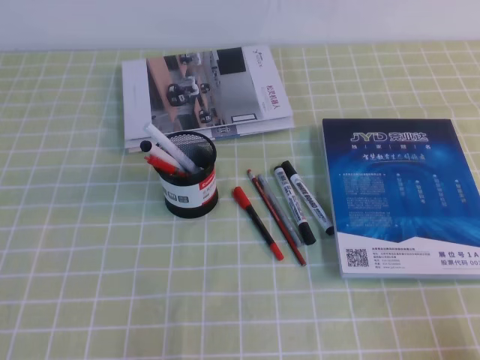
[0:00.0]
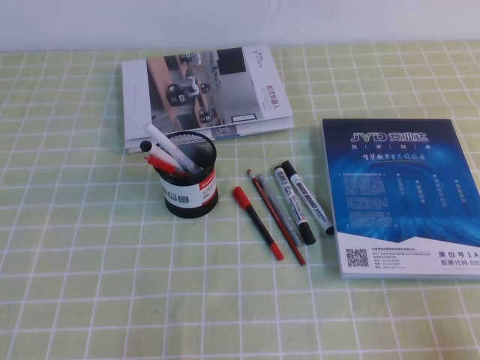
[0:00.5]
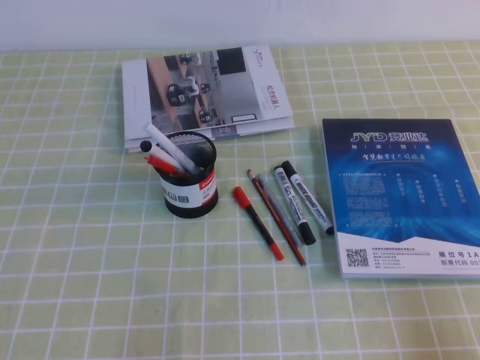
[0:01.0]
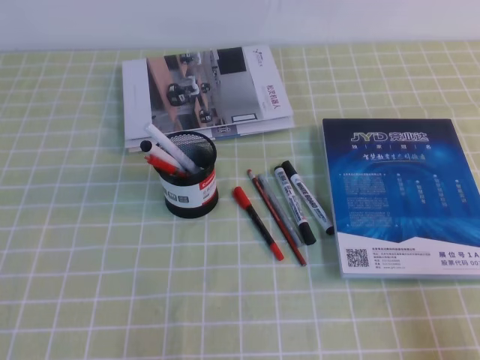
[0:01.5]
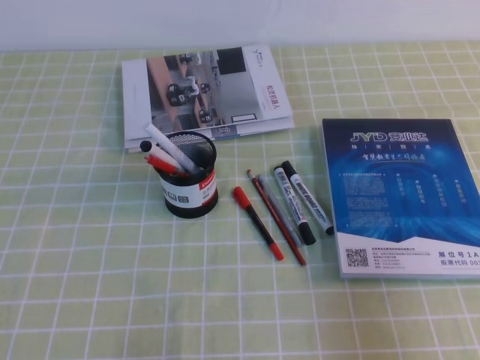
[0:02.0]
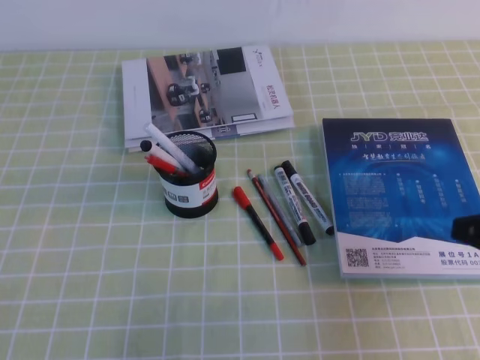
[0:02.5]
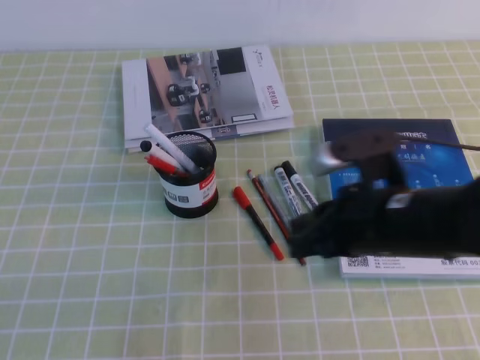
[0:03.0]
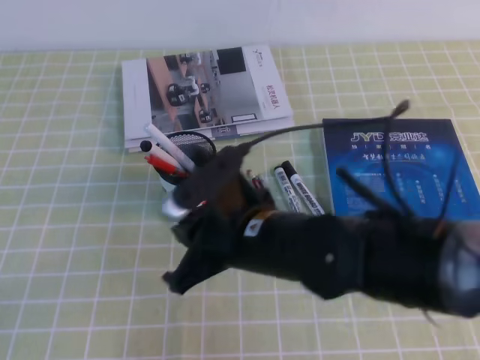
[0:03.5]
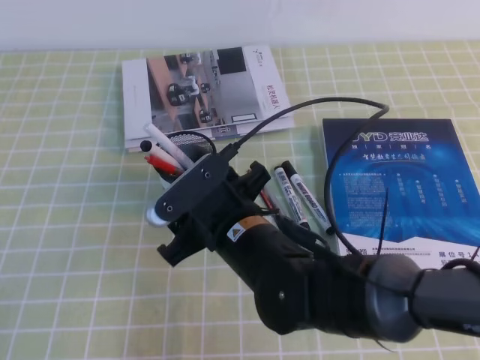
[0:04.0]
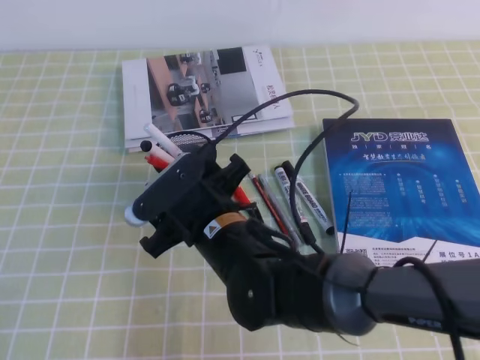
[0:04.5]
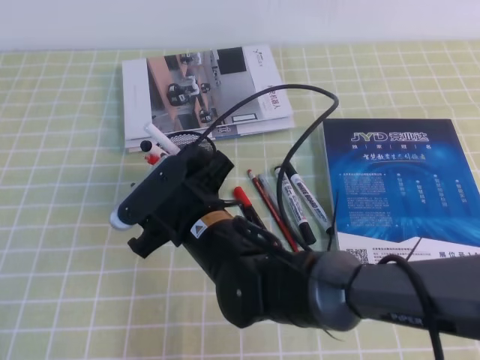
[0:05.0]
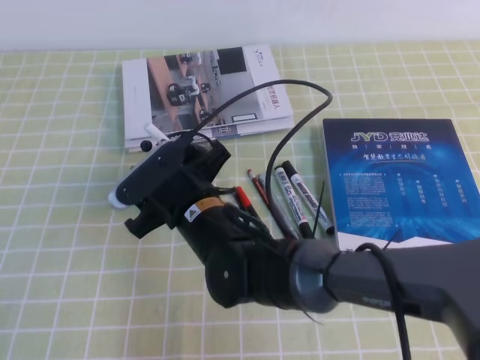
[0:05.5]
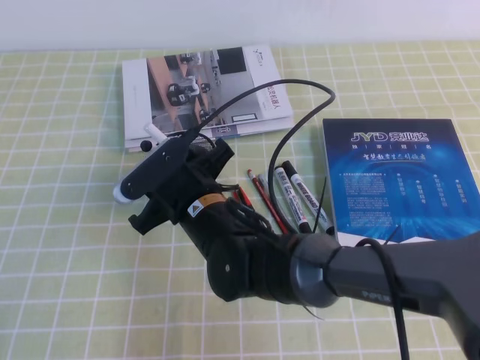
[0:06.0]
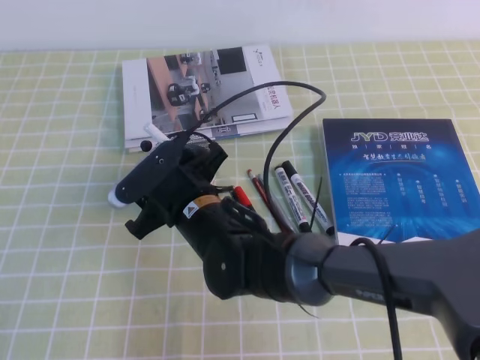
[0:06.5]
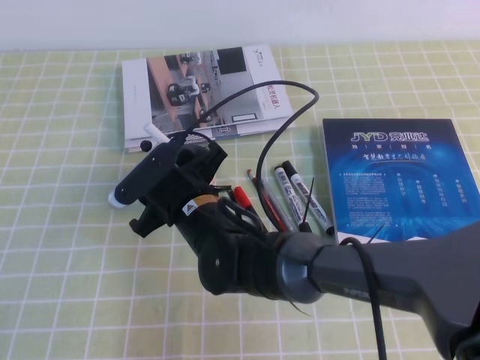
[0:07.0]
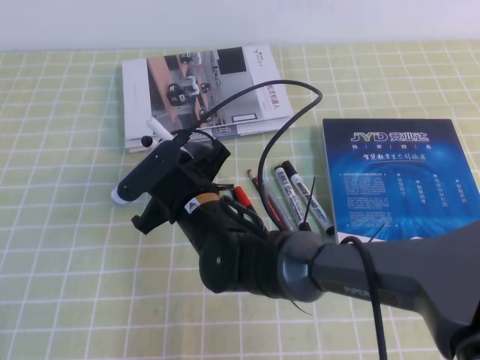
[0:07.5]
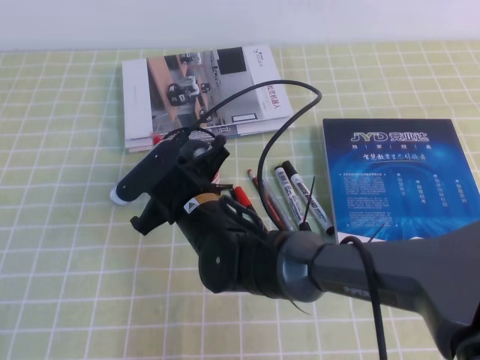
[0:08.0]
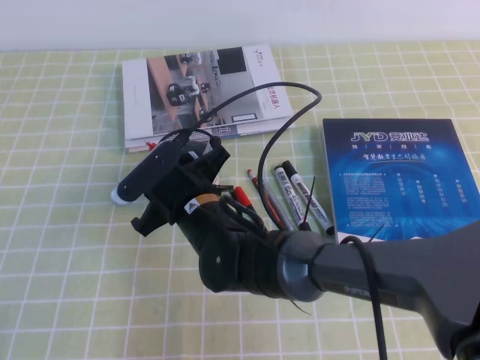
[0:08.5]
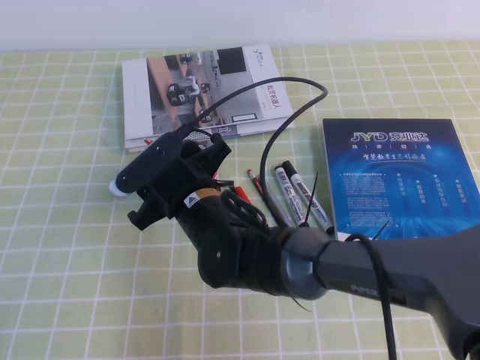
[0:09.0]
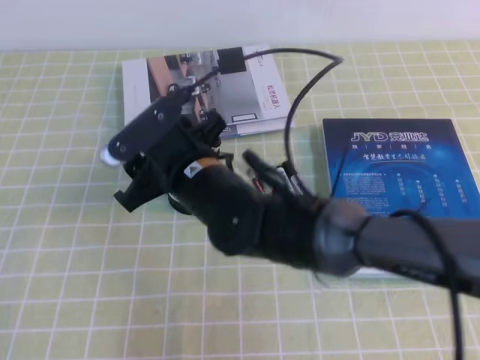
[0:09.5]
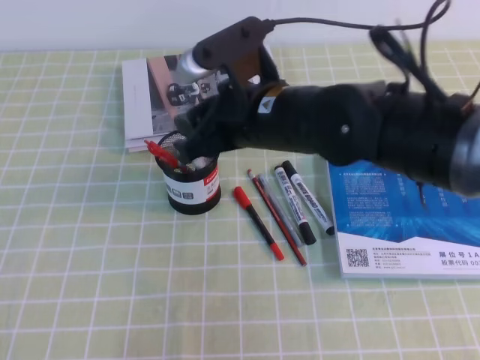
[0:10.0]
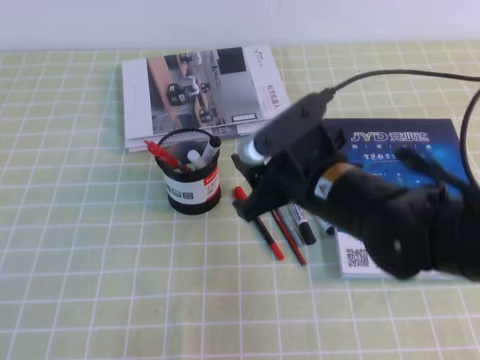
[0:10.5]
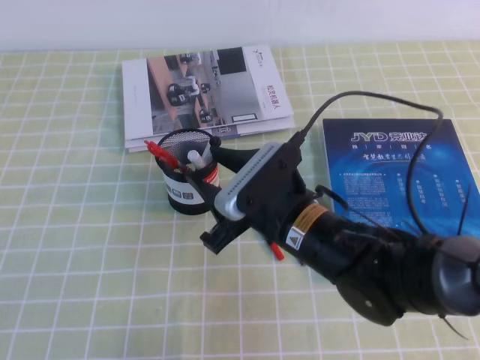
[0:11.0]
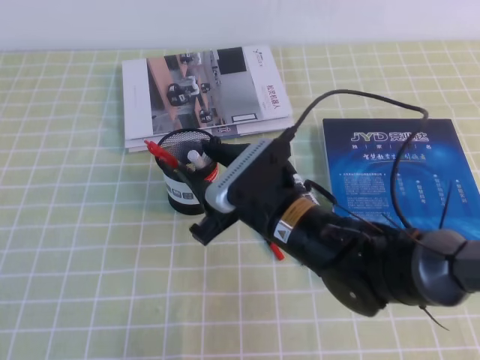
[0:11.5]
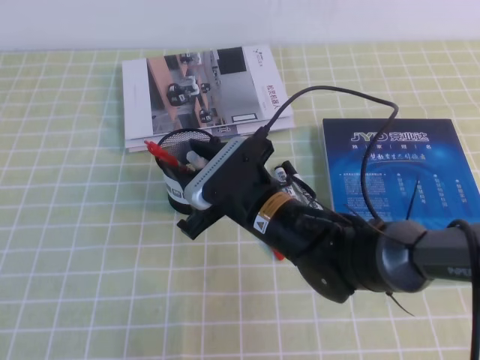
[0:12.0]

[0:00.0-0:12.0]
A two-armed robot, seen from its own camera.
0.0 to 2.0 s: The right gripper is displaced upward by about 10 cm.
2.0 to 4.0 s: The right gripper travels to the left and forward by approximately 35 cm, and opens its fingers.
4.0 to 6.0 s: The right gripper moves forward, some 5 cm.
6.0 to 8.0 s: The right gripper closes.
8.0 to 10.0 s: The right gripper moves upward and to the right, roughly 15 cm, and opens up.
10.0 to 12.0 s: The right gripper goes some 10 cm downward.

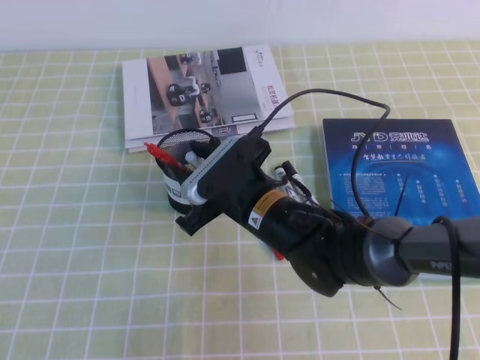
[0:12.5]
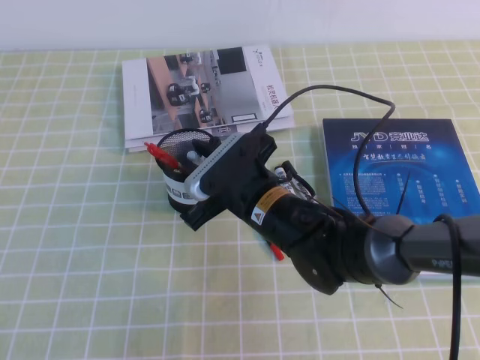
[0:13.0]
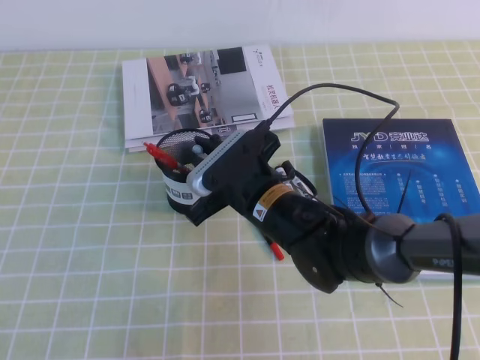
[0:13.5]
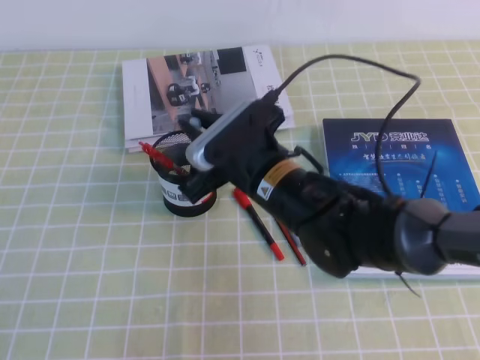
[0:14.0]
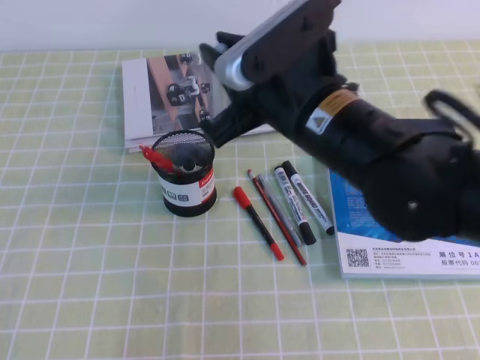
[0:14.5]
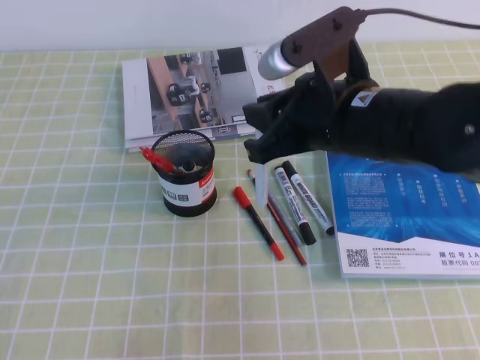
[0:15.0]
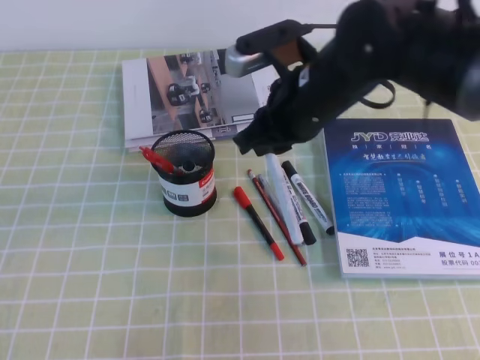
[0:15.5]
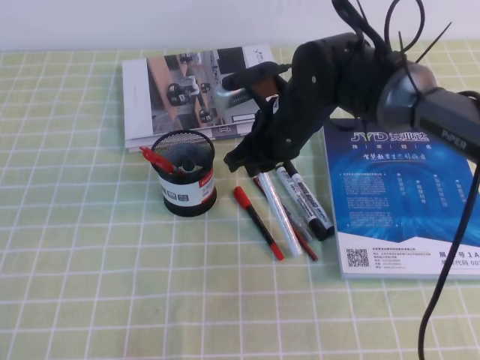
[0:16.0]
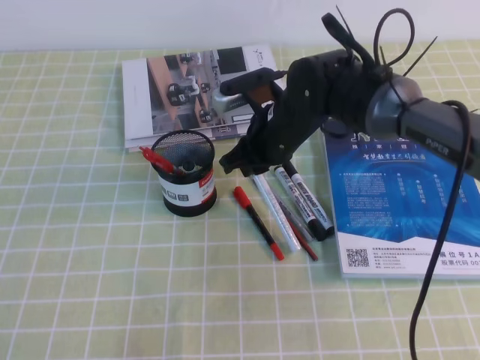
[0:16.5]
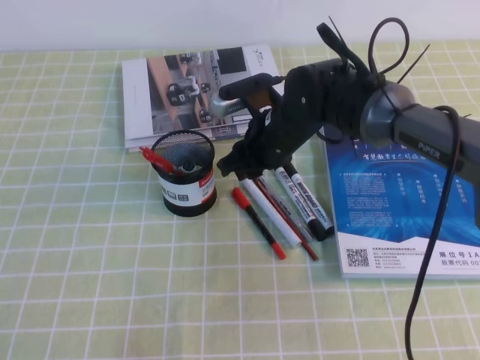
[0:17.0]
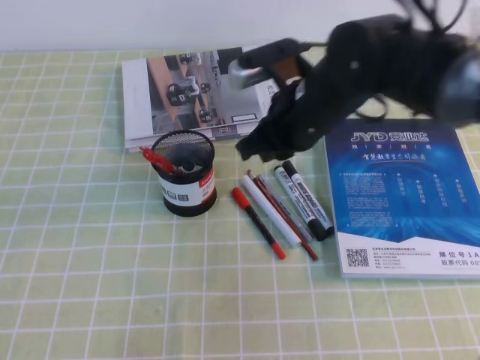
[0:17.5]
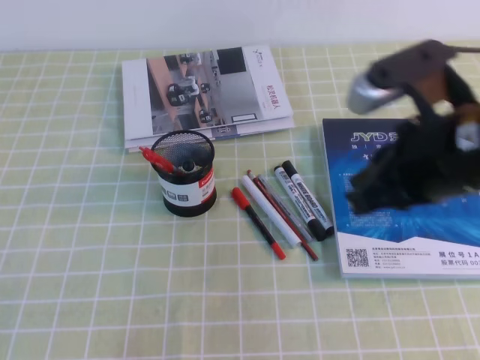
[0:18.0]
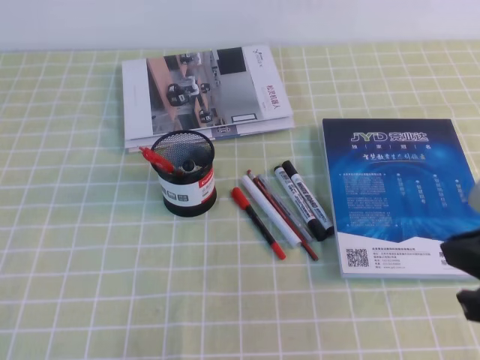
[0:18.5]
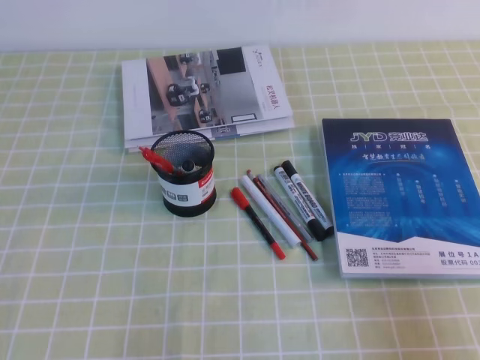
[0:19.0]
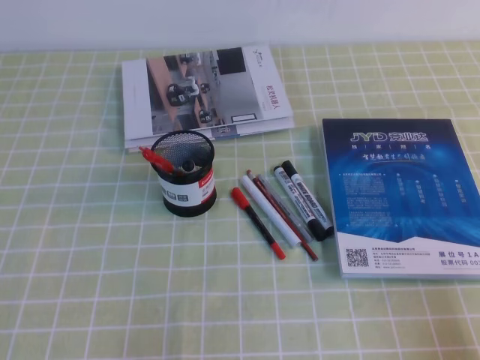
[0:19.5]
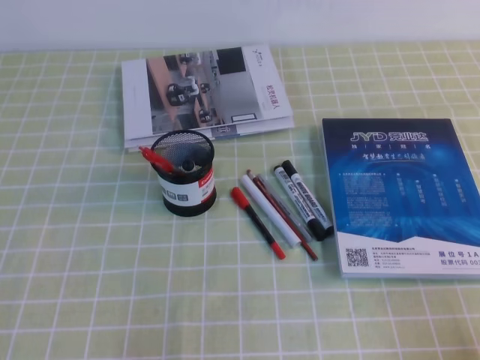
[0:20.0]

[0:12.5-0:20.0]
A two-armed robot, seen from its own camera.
Step, 12.5 to 20.0 s: Pick up the pen from the pen holder.
12.5 to 14.5 s: The right gripper goes some 15 cm upward, and closes up.
14.5 to 16.5 s: The right gripper is displaced forward and downward by roughly 15 cm.
16.5 to 18.0 s: The right gripper moves backward, to the right and upward, approximately 25 cm.
18.0 to 20.0 s: The right gripper travels backward, downward and to the right by roughly 30 cm.

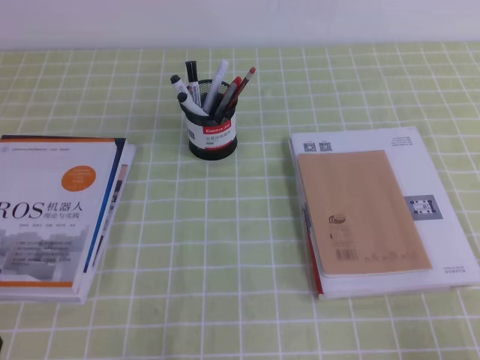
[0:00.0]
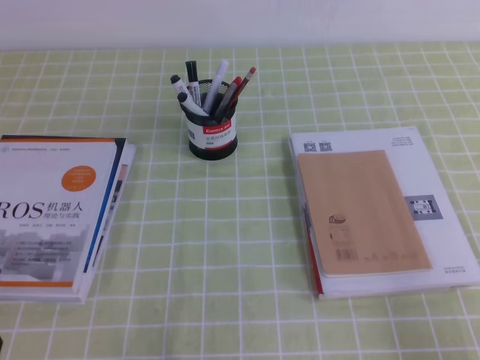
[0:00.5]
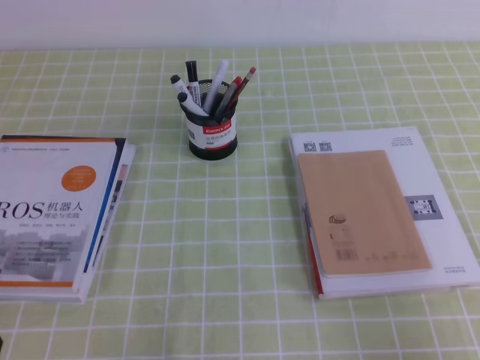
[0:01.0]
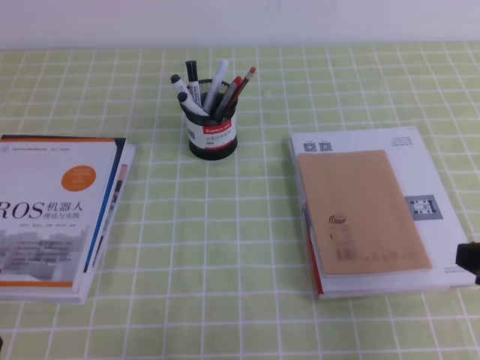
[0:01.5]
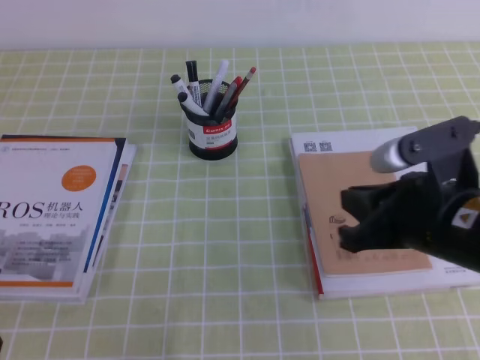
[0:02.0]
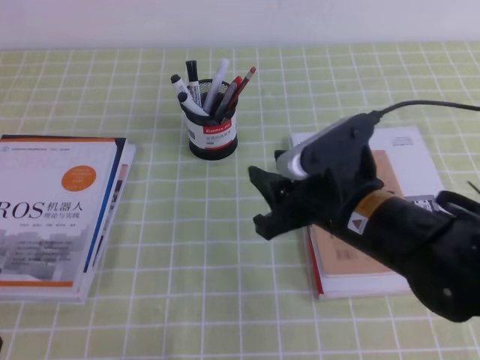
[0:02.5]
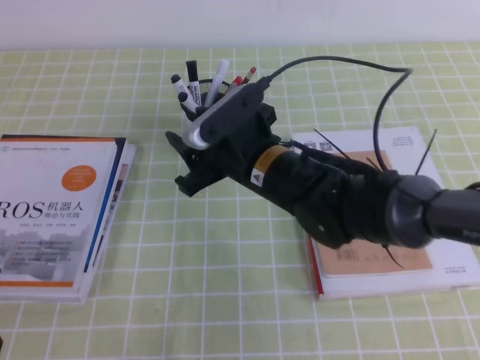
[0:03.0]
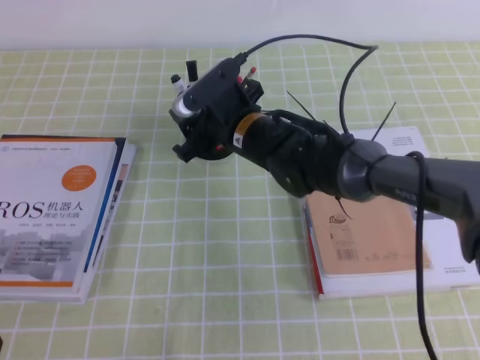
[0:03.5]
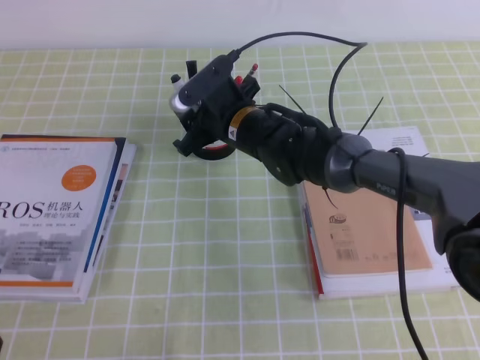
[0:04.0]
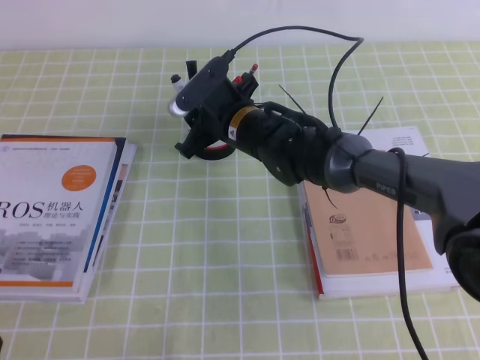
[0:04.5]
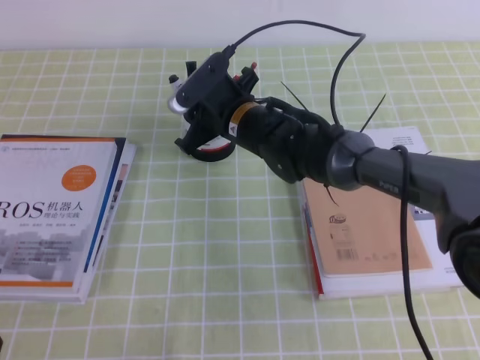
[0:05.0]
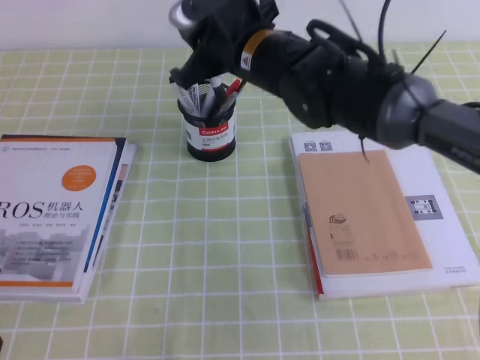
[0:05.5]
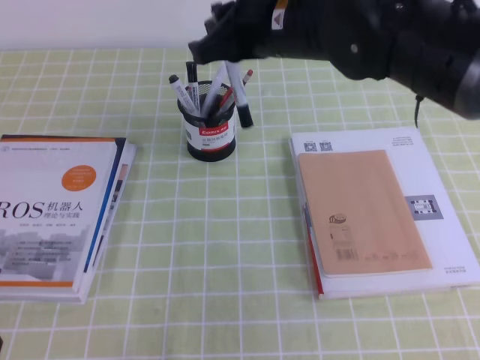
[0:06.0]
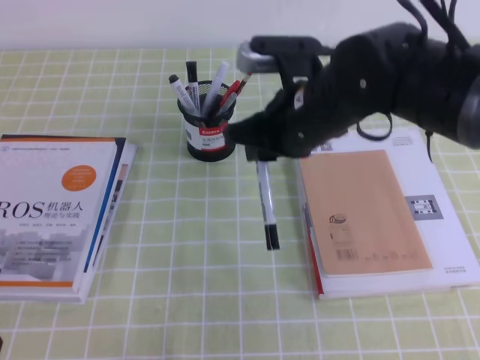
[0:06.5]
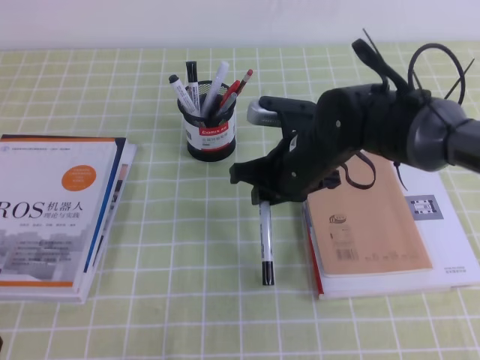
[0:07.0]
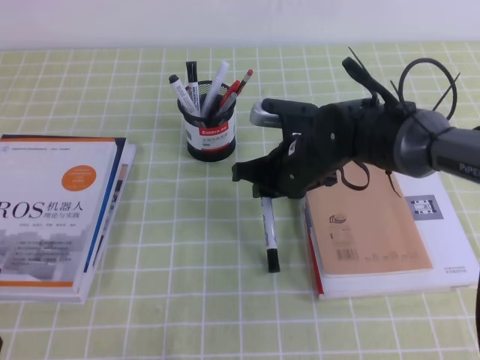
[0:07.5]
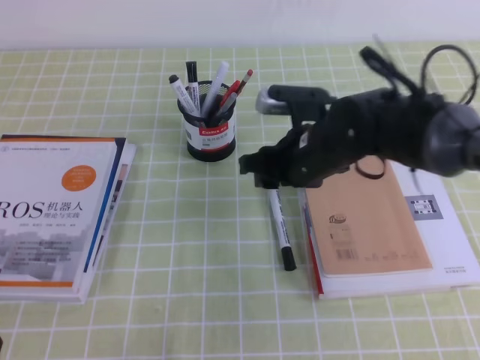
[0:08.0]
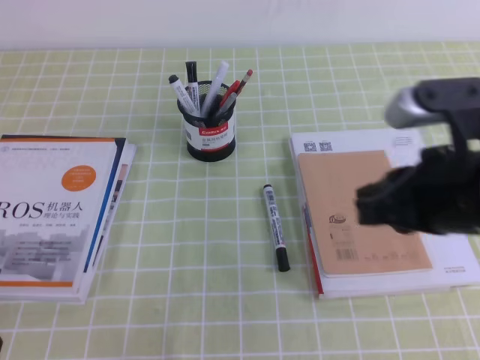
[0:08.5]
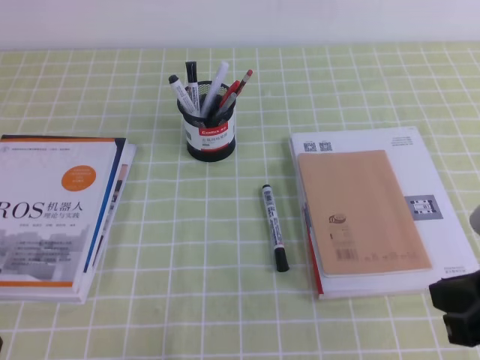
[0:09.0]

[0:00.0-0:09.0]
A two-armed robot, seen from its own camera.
0.0 to 2.0 s: The right gripper moves forward, to the left and upward, approximately 20 cm.
2.0 to 4.5 s: The right gripper heads forward and to the left, covering roughly 30 cm, and opens its fingers.
4.5 to 7.0 s: The right gripper heads to the right and backward, covering about 10 cm, and moves some 15 cm upward and comes back.
7.0 to 9.0 s: The right gripper is displaced backward and to the right by roughly 25 cm, and opens, then closes again.
